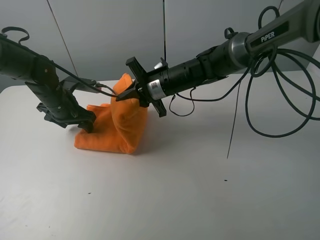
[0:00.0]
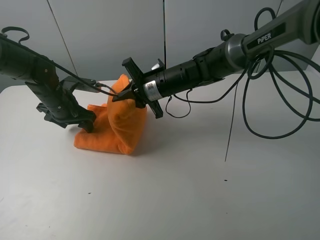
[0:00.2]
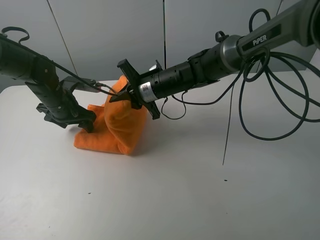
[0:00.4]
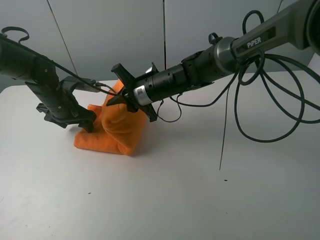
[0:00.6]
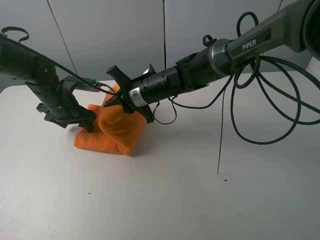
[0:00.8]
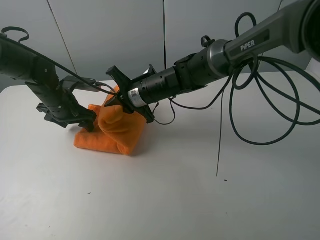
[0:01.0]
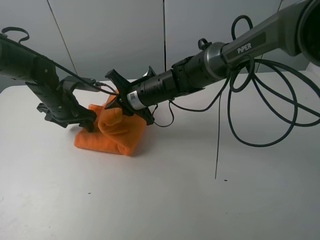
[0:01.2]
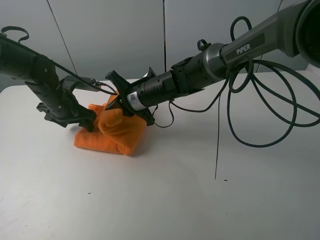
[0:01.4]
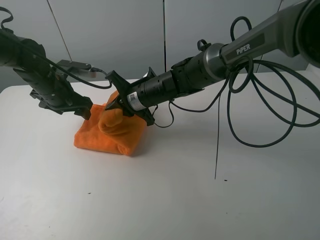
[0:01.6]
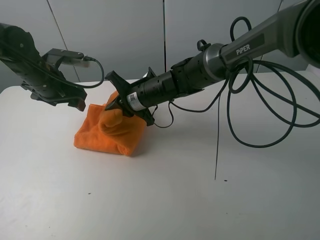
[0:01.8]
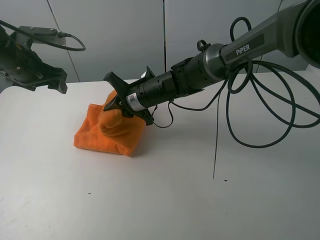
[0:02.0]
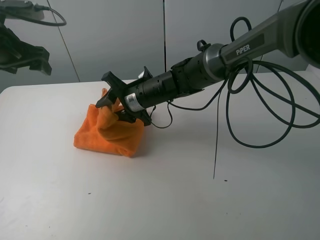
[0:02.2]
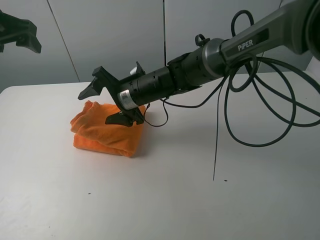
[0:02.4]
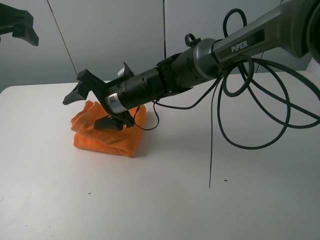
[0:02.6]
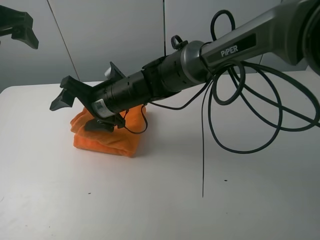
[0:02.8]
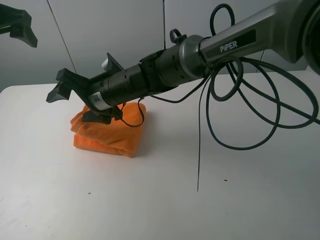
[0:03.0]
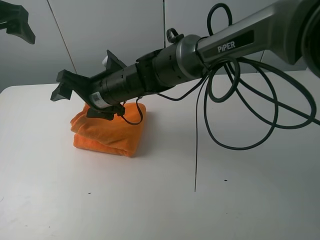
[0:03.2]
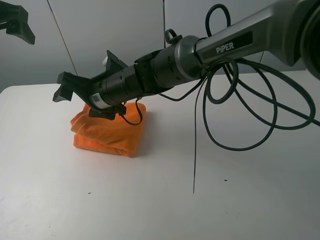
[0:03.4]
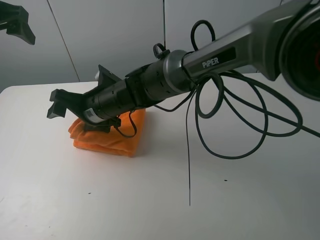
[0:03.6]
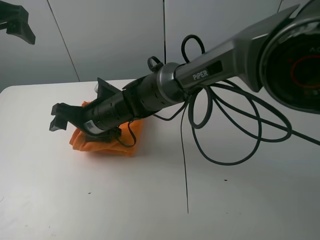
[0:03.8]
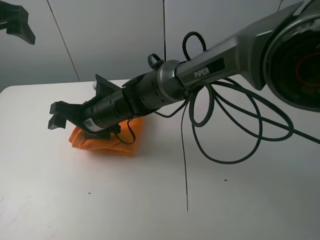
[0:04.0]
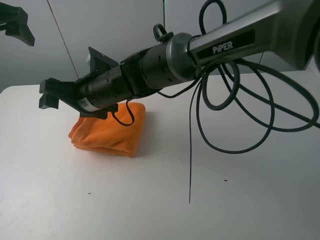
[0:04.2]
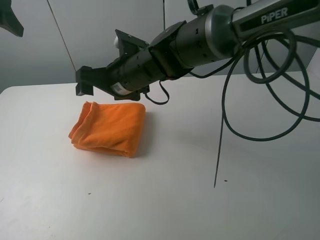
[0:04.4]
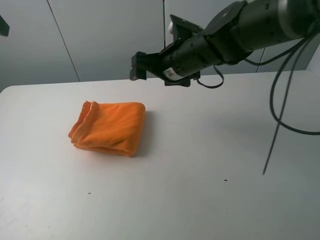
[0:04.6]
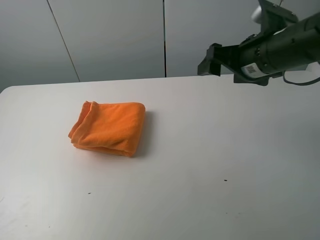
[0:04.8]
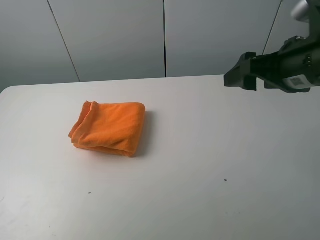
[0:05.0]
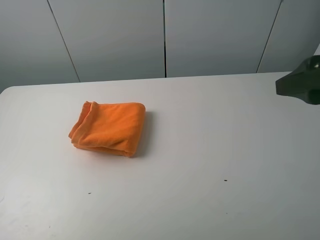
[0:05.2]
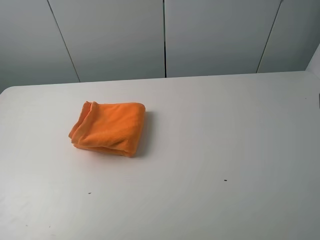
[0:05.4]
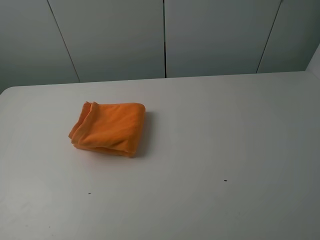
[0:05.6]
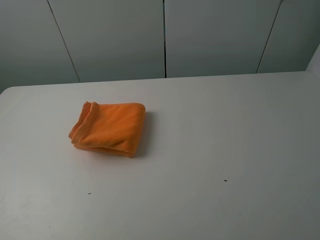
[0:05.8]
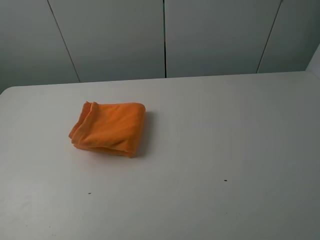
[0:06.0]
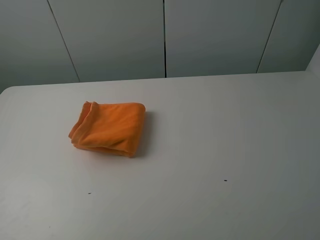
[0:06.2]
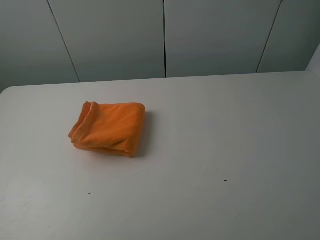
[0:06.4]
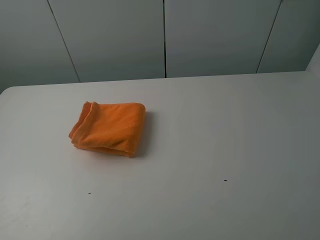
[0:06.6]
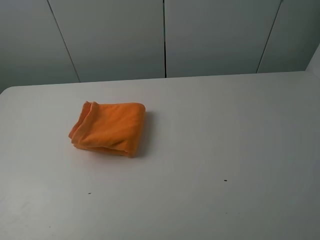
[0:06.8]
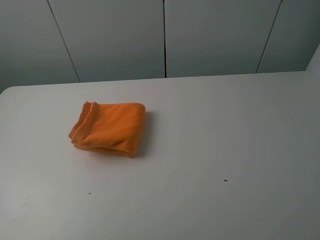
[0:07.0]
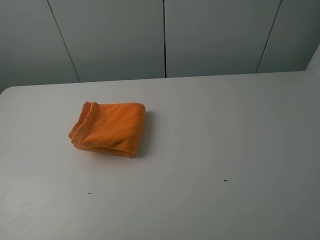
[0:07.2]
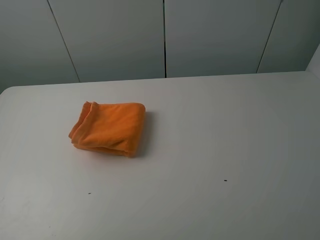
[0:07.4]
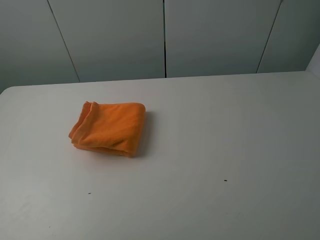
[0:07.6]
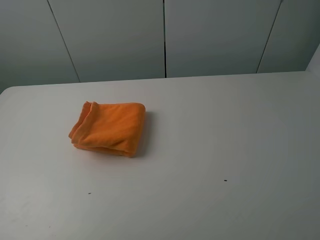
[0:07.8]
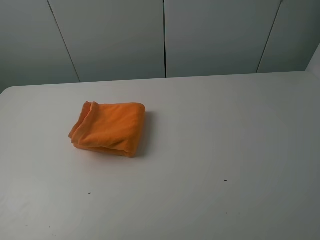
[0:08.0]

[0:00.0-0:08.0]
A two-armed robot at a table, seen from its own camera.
Task of the whole recording: fold the towels on the table.
Step, 0:00.0 to 0:02.4: Fold the orange towel from right to left with right gripper.
Step, 0:02.6 to 0:04.0: Arrange the orange towel with the right hand.
0:00.0 to 0:01.6: The grippers move only a little.
0:01.6 to 0:03.2: The right gripper goes approximately 5 cm to the left, and opens; the left gripper moves upward, some 20 cm.
0:03.2 to 0:04.8: The right gripper goes roughly 25 cm to the right, while the left gripper is displaced backward by some 15 cm.
0:04.8 to 0:06.4: The left gripper shifts about 20 cm backward and downward. Meanwhile the right gripper is displaced backward and to the right by some 30 cm.

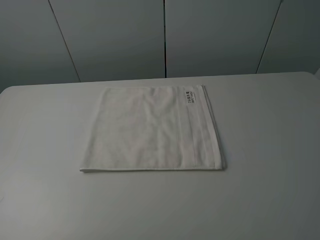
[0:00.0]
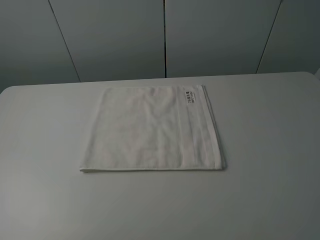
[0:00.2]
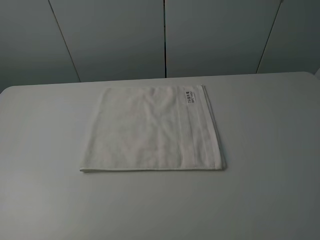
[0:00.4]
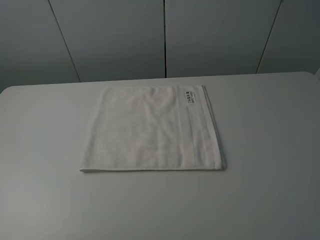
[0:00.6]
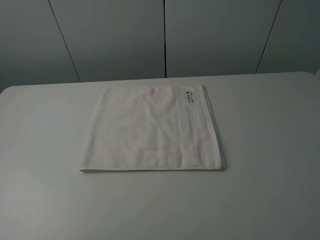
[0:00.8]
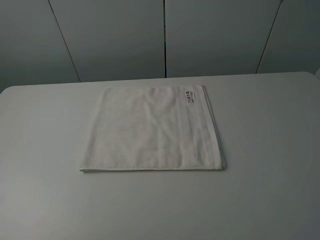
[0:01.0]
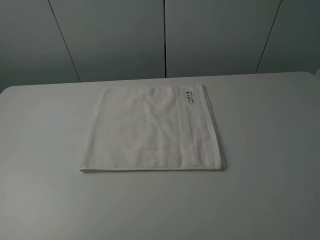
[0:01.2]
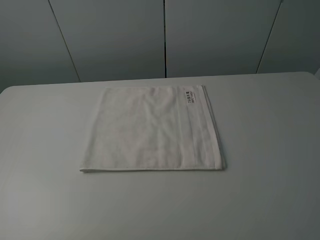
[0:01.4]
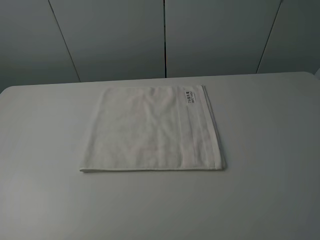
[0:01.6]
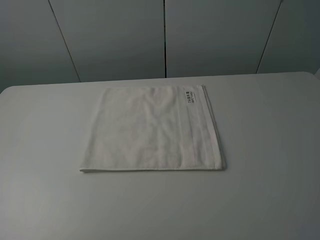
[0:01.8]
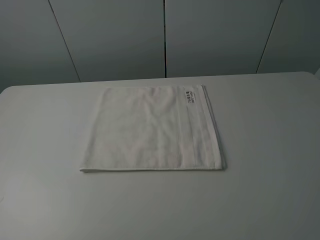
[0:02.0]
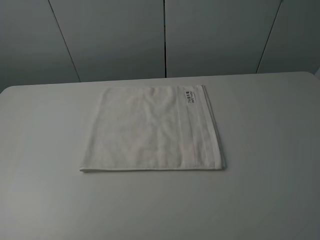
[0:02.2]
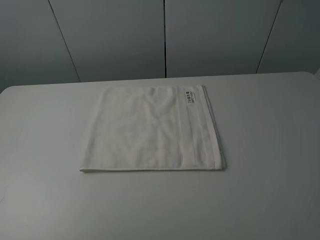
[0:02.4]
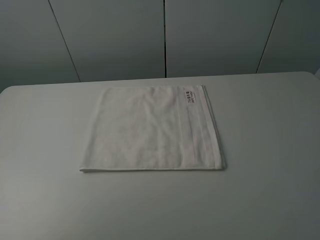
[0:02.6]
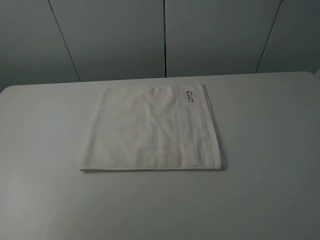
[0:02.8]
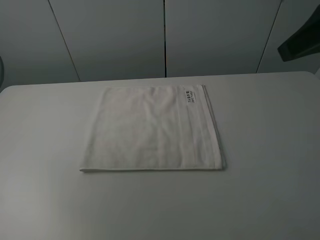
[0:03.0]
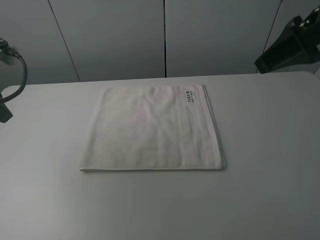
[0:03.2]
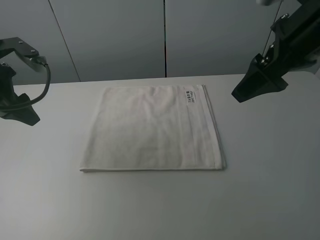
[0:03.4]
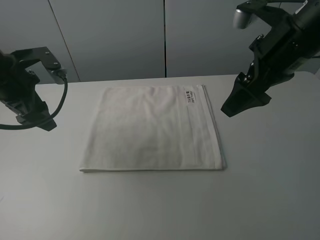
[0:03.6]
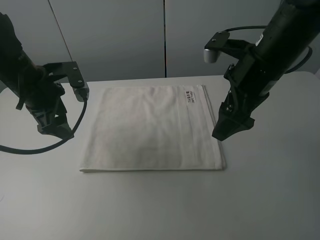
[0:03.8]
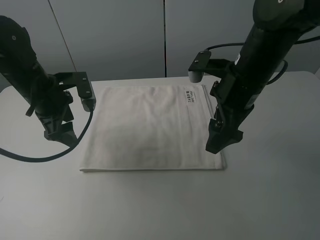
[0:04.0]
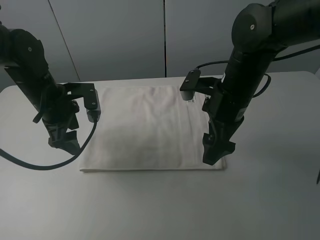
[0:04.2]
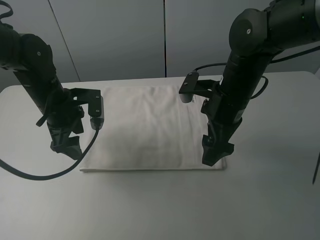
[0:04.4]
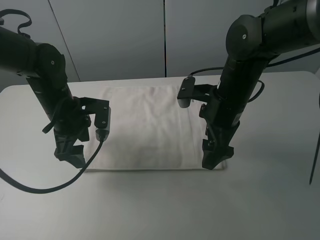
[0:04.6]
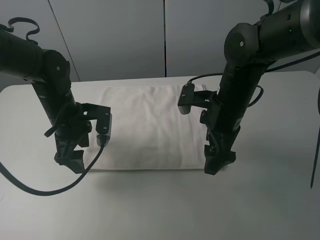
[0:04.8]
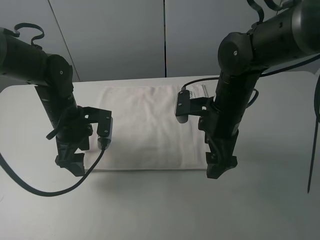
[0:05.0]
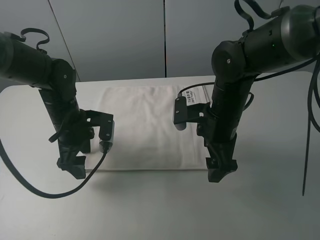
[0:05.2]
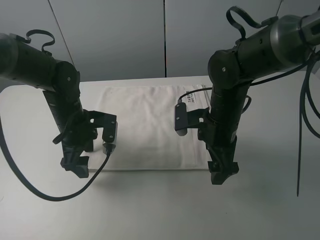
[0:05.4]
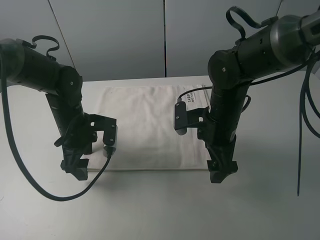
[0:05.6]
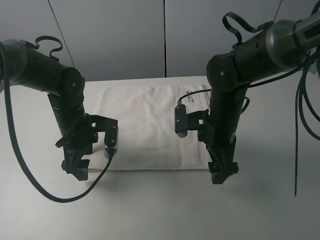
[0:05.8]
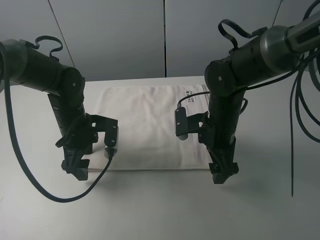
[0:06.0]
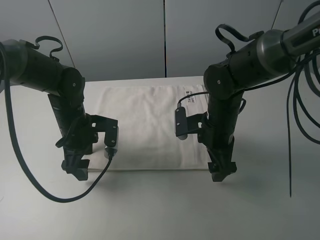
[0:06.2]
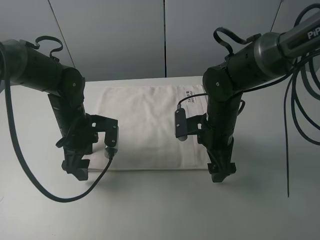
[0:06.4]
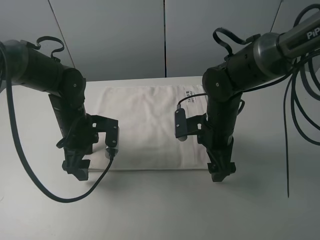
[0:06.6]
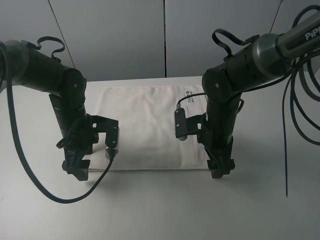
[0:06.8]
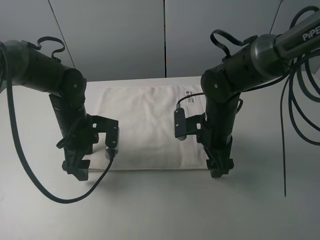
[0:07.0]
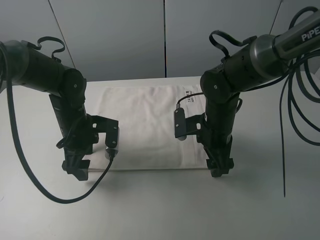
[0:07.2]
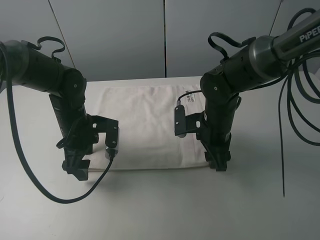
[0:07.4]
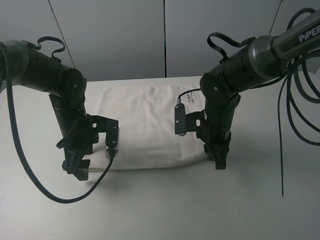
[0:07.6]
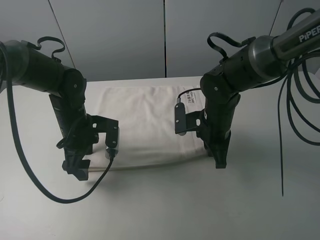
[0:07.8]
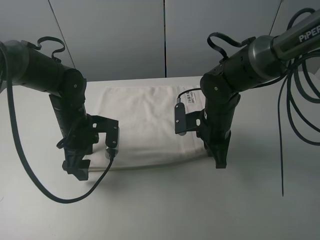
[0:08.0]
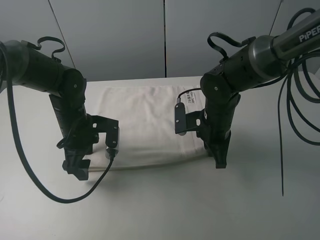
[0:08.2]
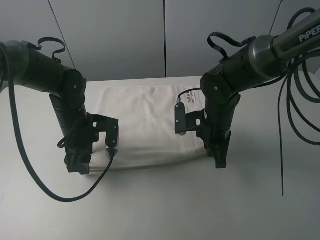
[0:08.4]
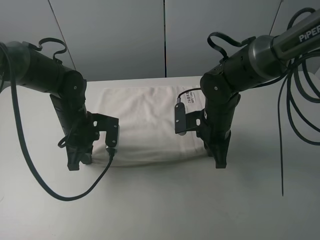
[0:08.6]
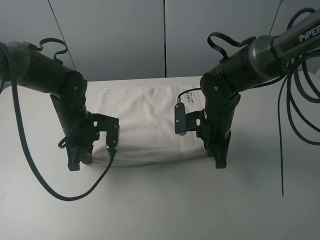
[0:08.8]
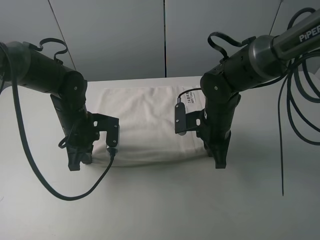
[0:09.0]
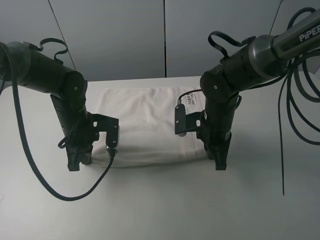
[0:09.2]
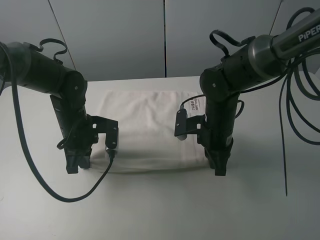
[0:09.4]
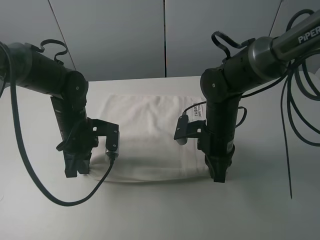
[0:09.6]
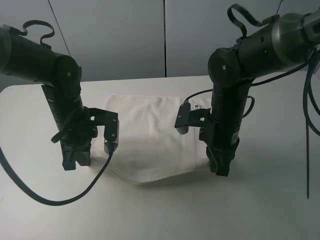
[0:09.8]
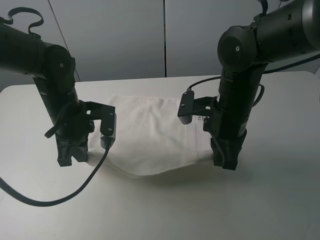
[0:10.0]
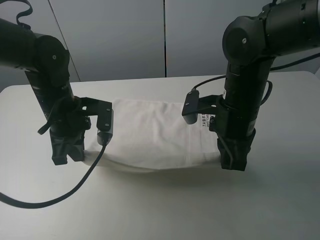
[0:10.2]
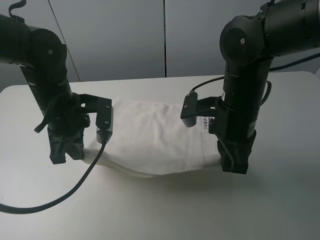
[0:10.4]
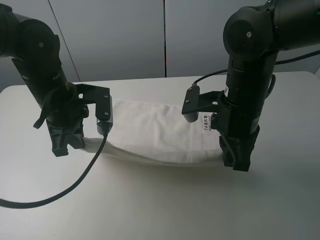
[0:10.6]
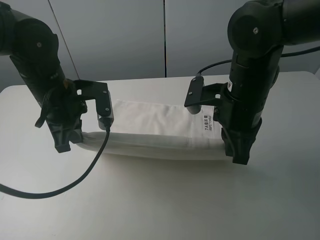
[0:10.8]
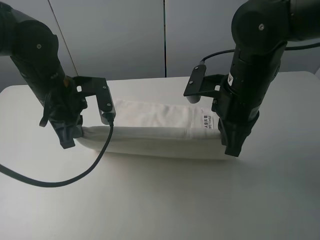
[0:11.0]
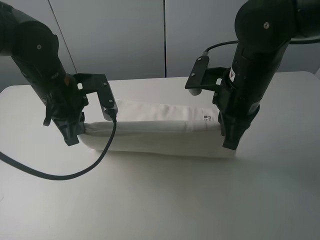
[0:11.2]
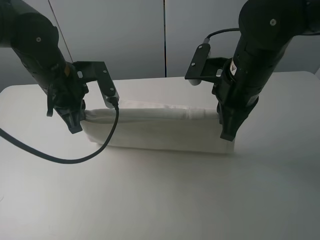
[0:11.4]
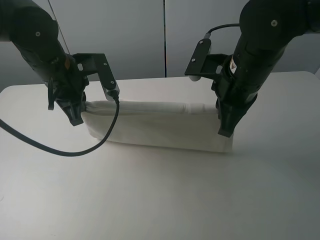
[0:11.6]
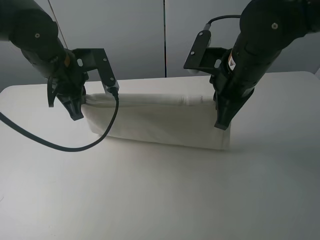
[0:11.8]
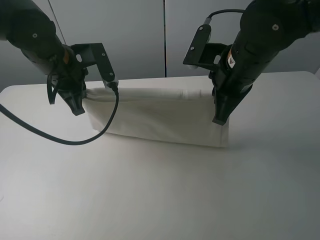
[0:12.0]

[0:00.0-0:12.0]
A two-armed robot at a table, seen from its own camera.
Task of the whole recording: fold the towels on the table.
Step, 0:00.0 to 0:07.8: Grasp the white towel with the right gripper.
Step, 0:08.0 to 0:08.8: Grasp the white towel with the left gripper.
0:00.0 to 0:01.6: Both grippers stay put.
0:01.6 to 0:03.0: The right gripper is displaced forward and upward by about 20 cm.
0:03.0 to 0:04.4: The left gripper moves to the right and downward, roughly 20 cm; the right gripper goes roughly 25 cm downward and to the left.
0:04.4 to 0:06.0: Both grippers travel together downward, approximately 5 cm.
0:06.0 to 0:07.6: The right gripper closes.
0:07.6 to 0:09.0: The left gripper closes its fingers.
0:09.0 to 0:10.4: The right gripper moves upward and backward, about 10 cm, while the left gripper heads upward, covering approximately 10 cm.
0:10.4 to 0:12.0: The left gripper heads forward, covering roughly 5 cm. Meanwhile the right gripper shifts by about 5 cm.

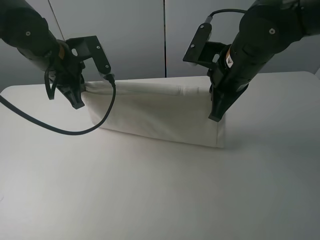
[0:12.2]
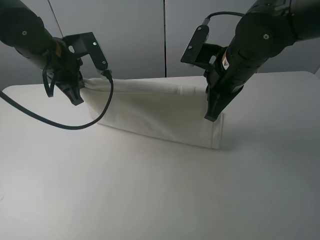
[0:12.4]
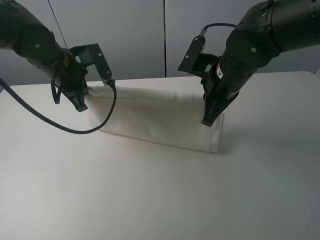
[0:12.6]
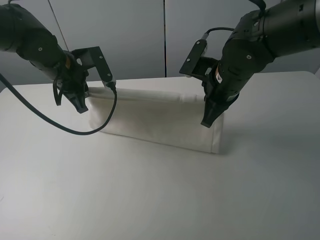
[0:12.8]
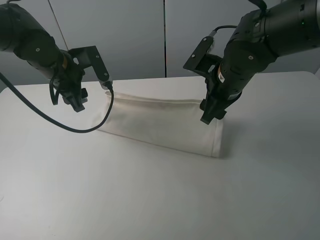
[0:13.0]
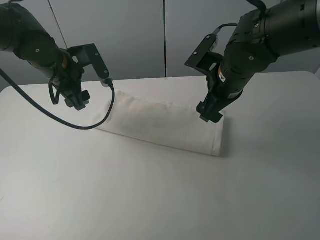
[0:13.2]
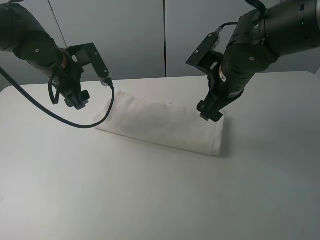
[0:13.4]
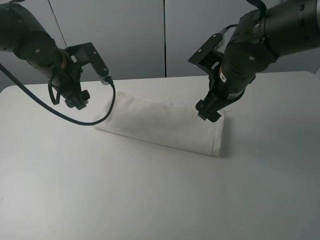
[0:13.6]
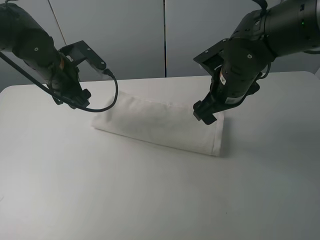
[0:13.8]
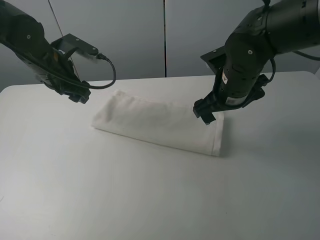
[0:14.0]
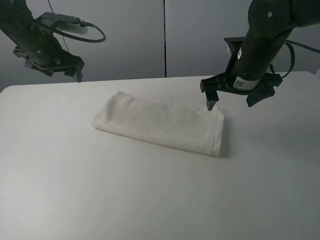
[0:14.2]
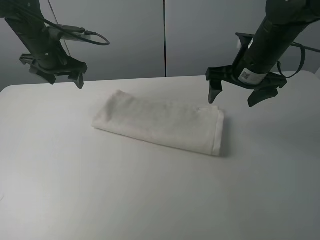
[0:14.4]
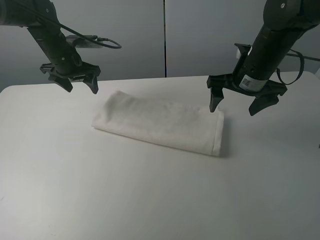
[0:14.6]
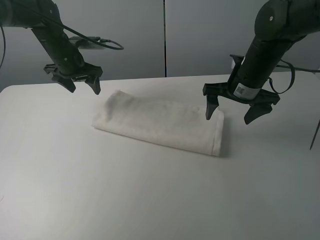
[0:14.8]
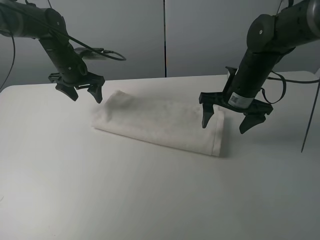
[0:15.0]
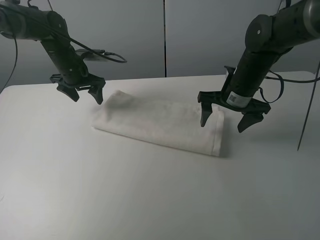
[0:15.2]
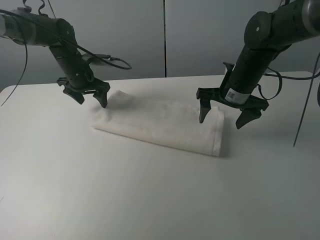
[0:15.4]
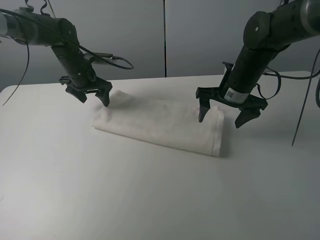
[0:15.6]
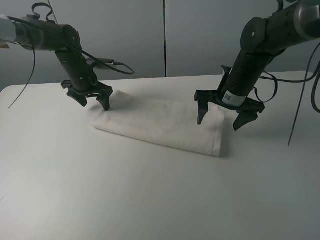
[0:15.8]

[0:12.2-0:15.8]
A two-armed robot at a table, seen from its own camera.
Task of the whole recording: fold the towels on the table.
Step, 0:12.2 to 0:14.6: Fold the white towel upwards with the right gripper.
0:12.2 to 0:14.0: The left gripper opens its fingers. Meanwhile the right gripper opens up.
0:14.0 to 0:15.8: The left gripper is displaced forward and downward by approximately 15 cm; the right gripper heads forward, covering roughly 5 cm.
